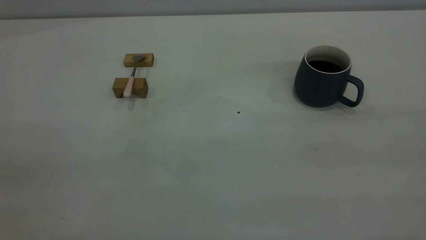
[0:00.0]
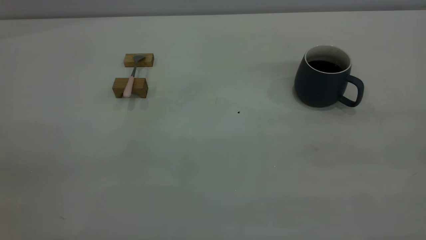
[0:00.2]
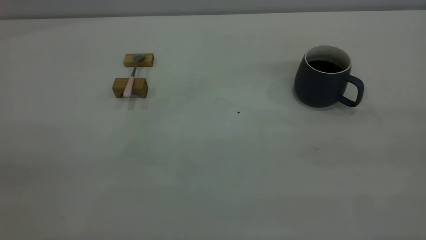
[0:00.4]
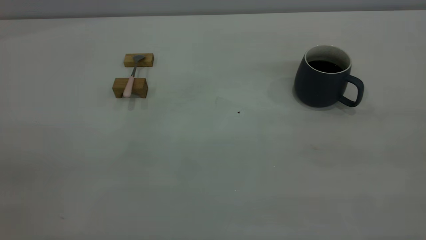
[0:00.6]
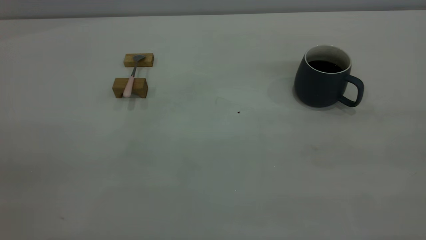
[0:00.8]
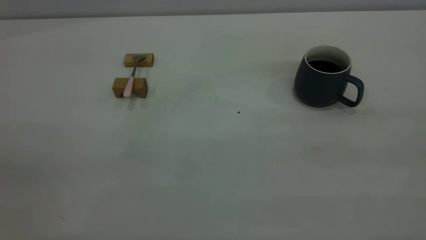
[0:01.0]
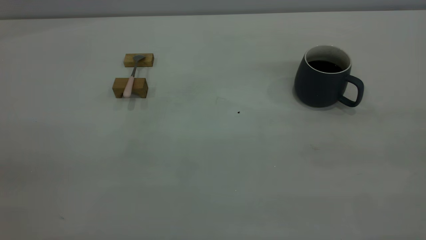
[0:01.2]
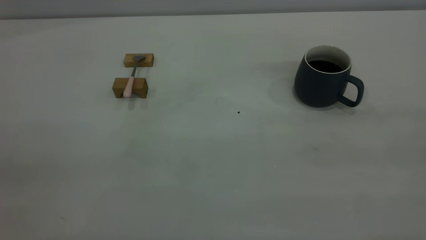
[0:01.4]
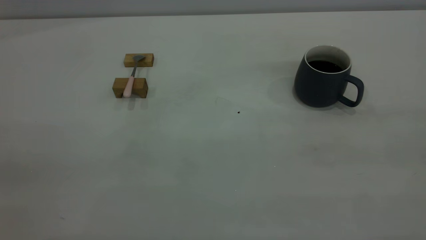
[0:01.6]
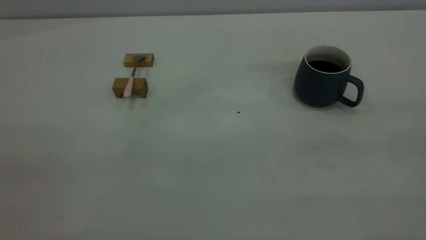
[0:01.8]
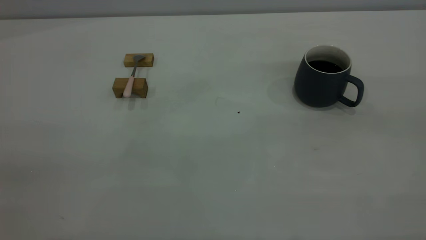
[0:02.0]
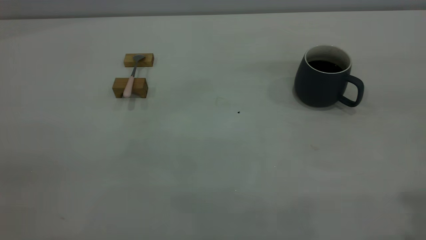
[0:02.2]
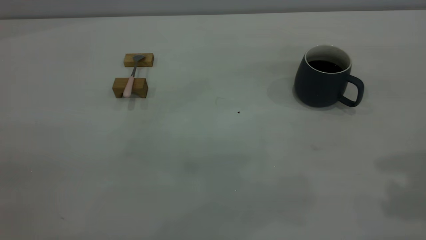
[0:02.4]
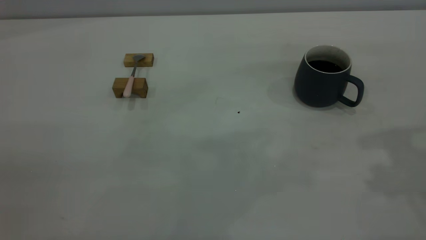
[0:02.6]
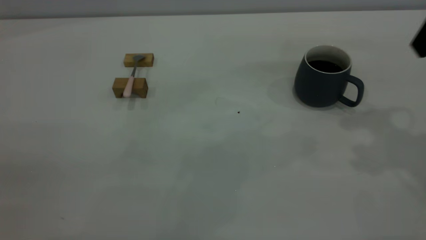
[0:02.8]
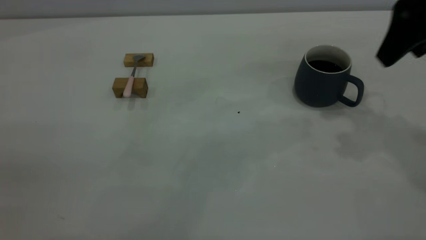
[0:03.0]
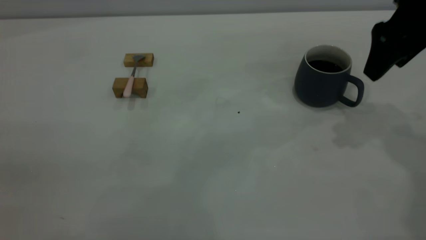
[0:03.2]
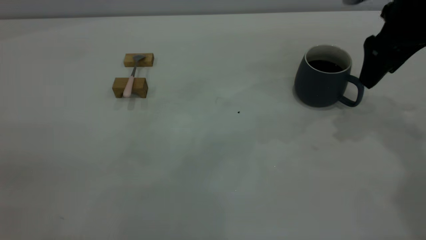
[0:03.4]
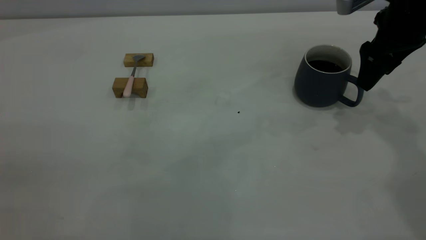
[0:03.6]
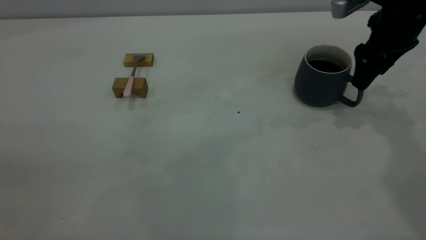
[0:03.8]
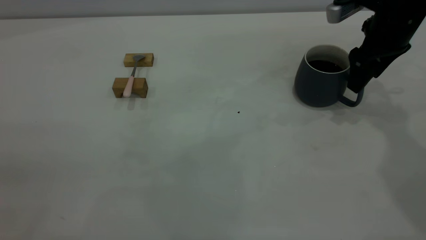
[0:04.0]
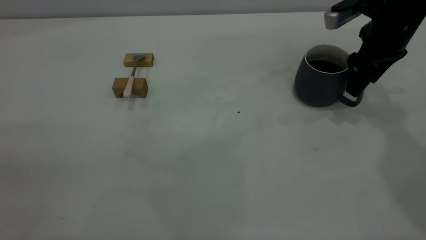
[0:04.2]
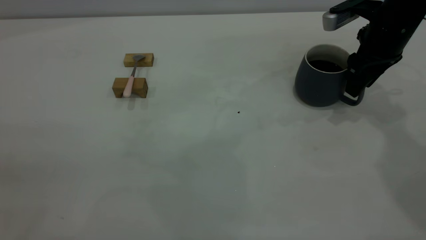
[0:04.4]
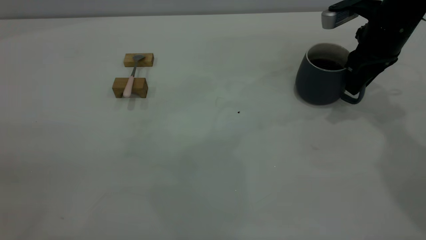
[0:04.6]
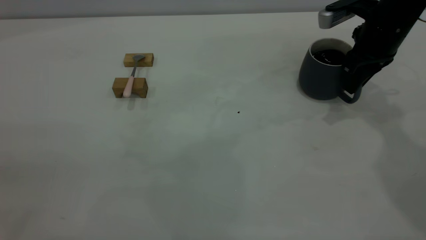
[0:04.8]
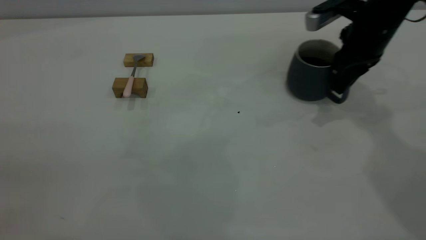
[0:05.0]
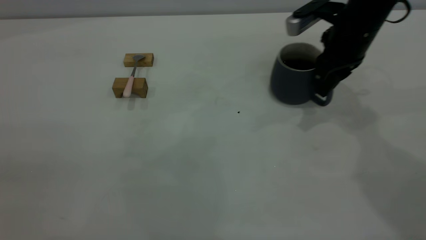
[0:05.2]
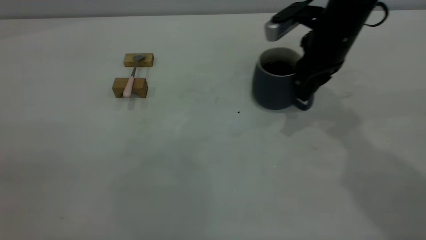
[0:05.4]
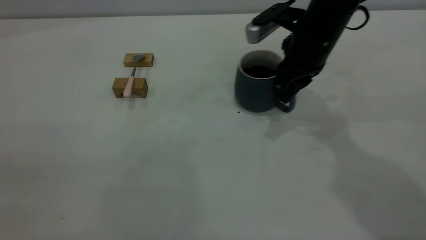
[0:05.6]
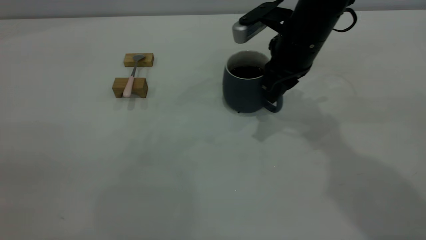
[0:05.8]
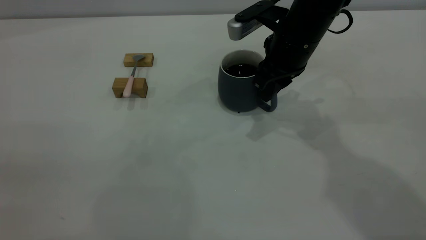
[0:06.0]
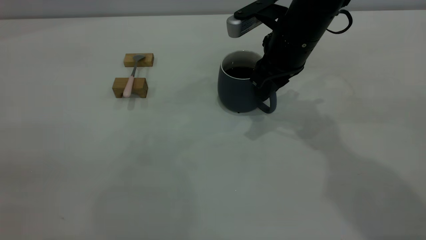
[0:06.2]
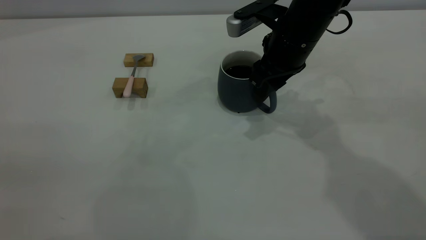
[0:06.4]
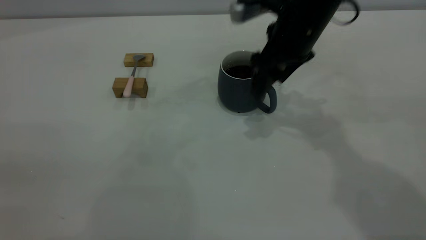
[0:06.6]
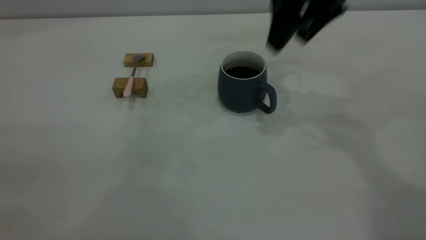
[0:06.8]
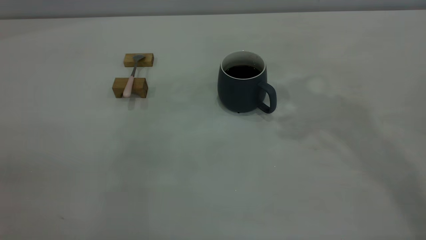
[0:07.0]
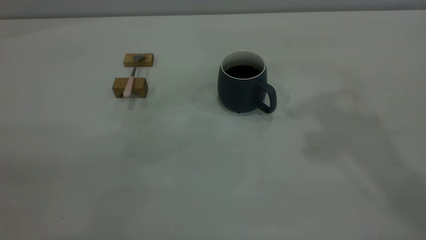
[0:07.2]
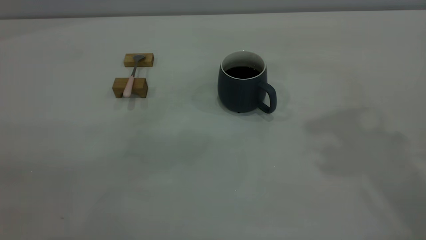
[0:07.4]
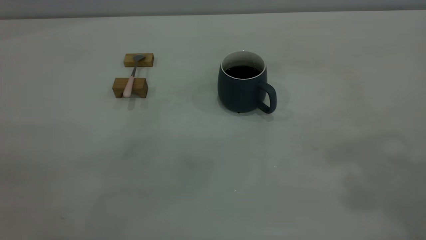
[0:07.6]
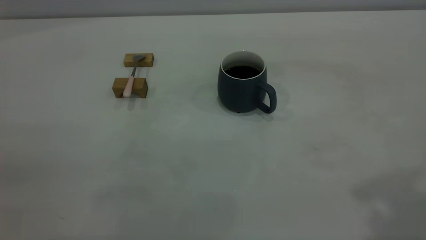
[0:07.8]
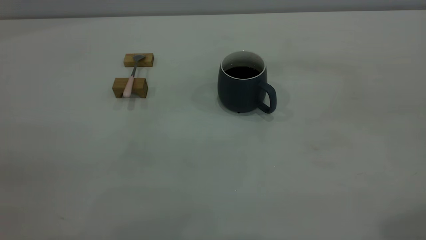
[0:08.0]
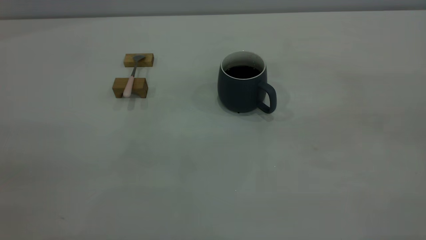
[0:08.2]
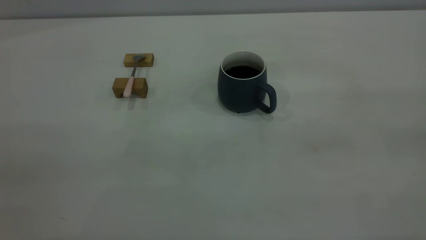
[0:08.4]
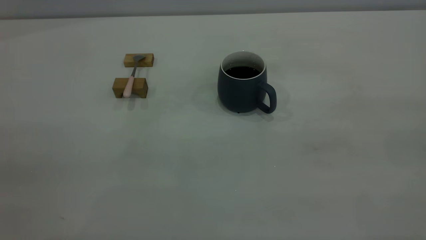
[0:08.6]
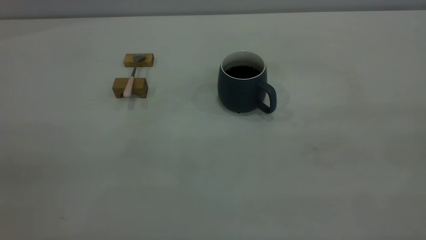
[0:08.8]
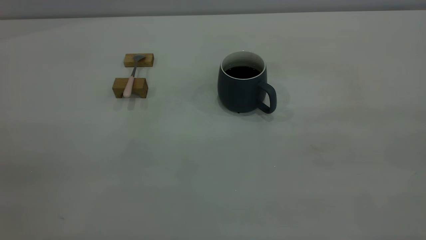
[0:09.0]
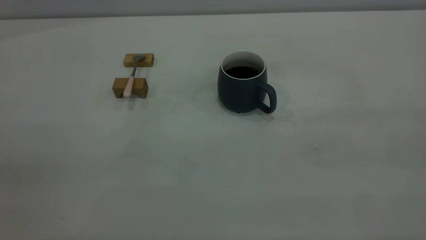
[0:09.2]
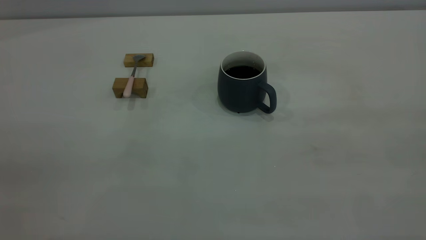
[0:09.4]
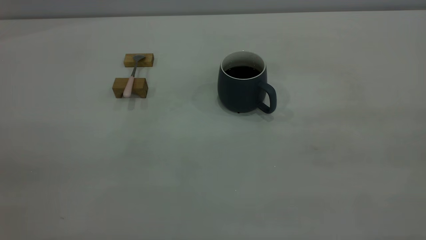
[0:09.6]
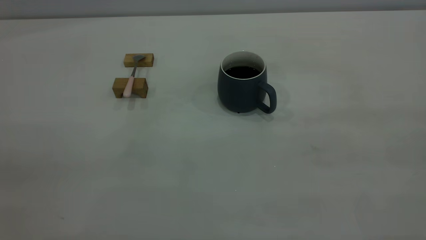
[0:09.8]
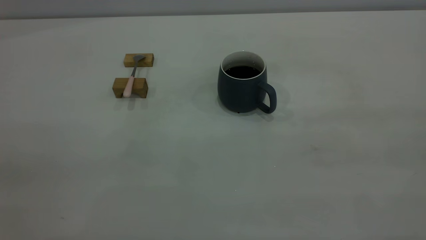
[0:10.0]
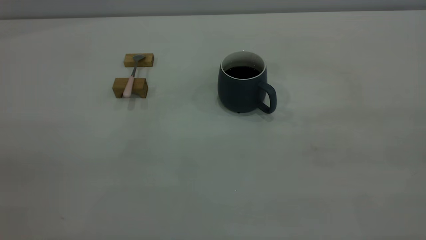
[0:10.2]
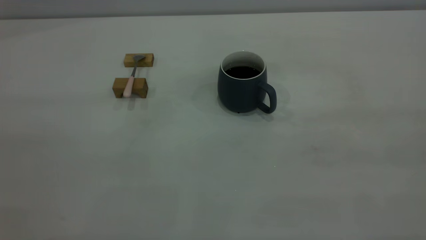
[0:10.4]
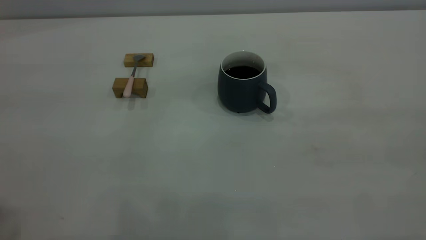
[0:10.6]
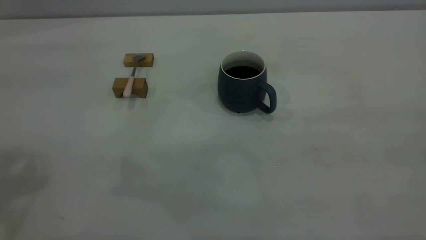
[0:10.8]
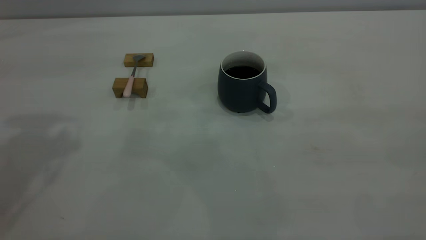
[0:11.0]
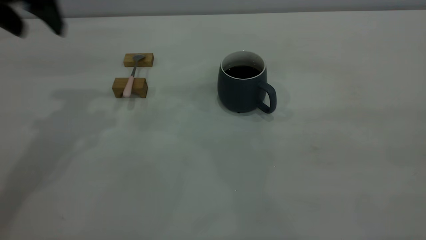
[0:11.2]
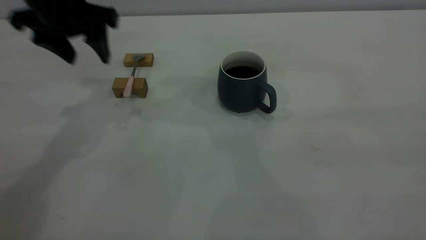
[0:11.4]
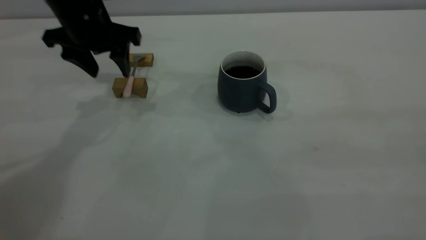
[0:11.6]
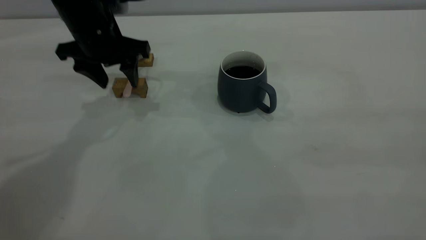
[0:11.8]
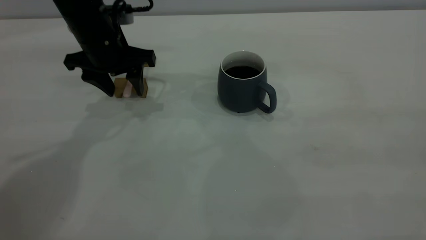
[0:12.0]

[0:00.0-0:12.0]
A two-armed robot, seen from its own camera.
Step, 0.0 to 6.6 s: Move the cup with coffee to the center of view.
0.0 to 1.6 s: The two grippers keep their place.
1.6 to 3.0 s: The right gripper travels forward by about 30 cm, and opens up.
3.0 to 4.4 s: The right gripper travels downward and forward by approximately 15 cm, and closes up.
4.4 to 6.0 s: The right gripper travels to the left by roughly 15 cm, and closes its fingers.
6.0 to 7.6 s: The right gripper is displaced upward and backward by roughly 40 cm, and opens up.
10.4 to 12.0 s: The left gripper travels forward and downward by roughly 40 cm.

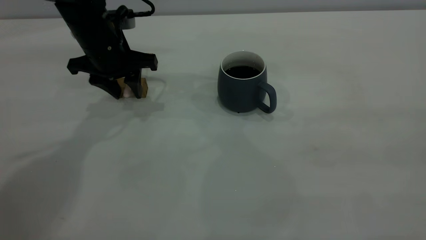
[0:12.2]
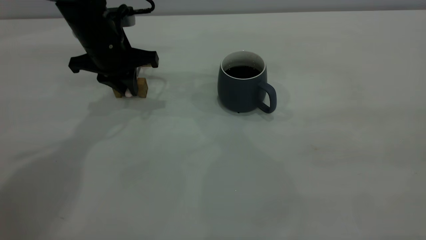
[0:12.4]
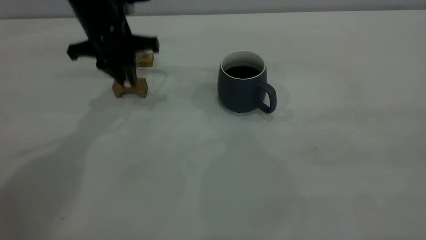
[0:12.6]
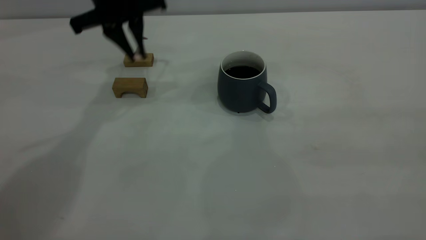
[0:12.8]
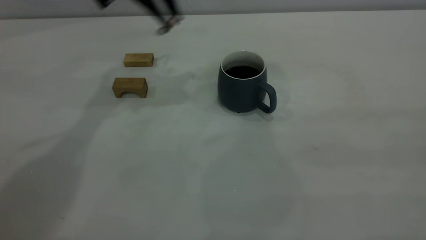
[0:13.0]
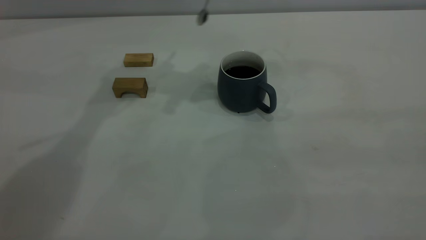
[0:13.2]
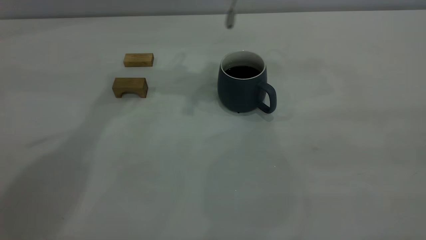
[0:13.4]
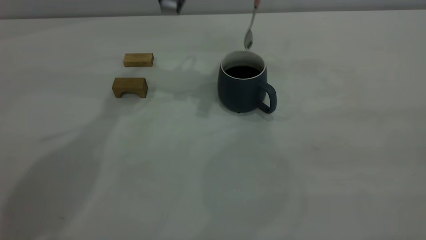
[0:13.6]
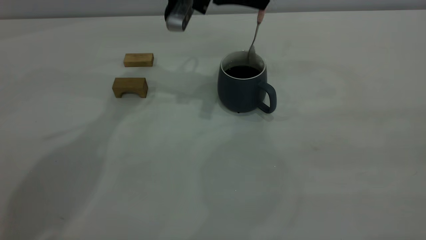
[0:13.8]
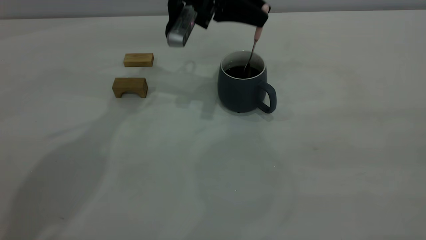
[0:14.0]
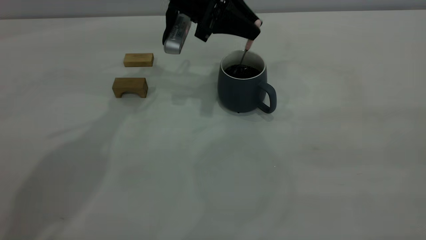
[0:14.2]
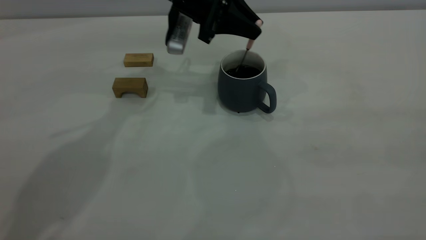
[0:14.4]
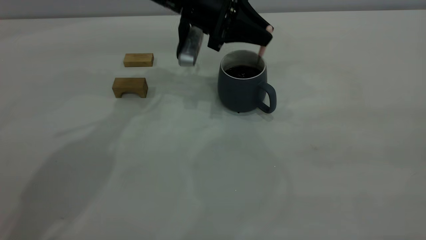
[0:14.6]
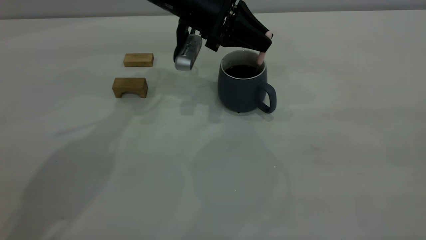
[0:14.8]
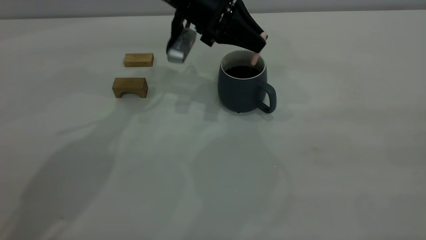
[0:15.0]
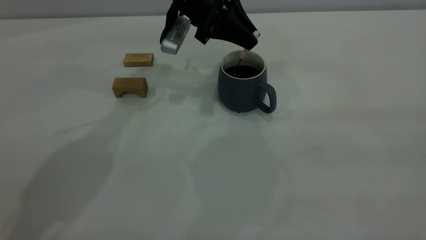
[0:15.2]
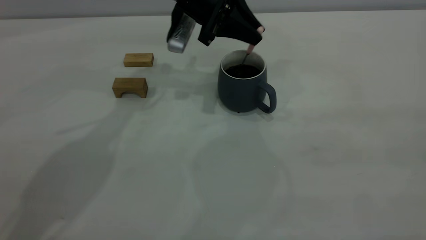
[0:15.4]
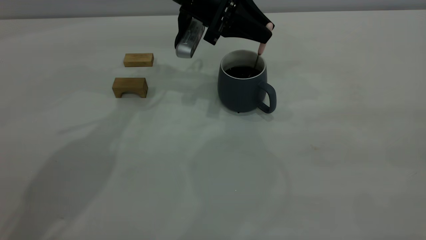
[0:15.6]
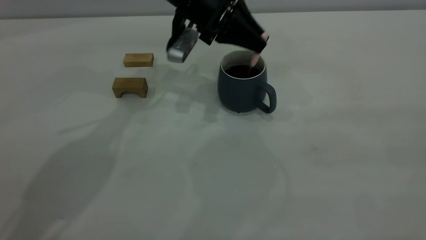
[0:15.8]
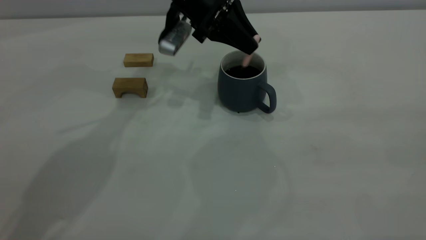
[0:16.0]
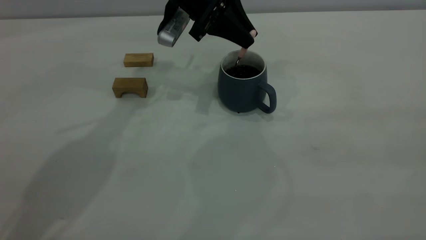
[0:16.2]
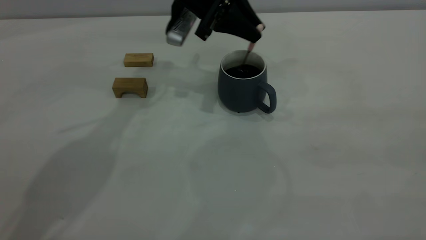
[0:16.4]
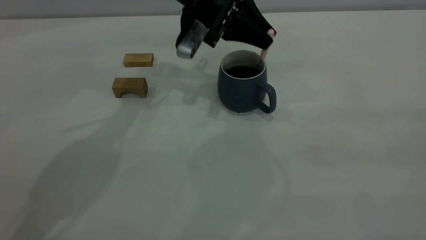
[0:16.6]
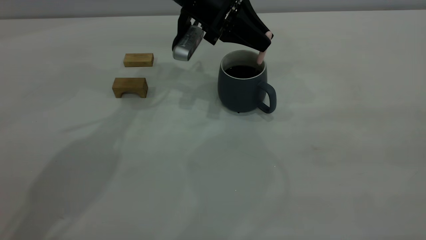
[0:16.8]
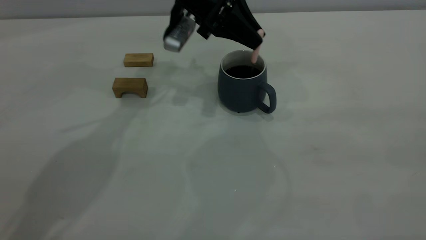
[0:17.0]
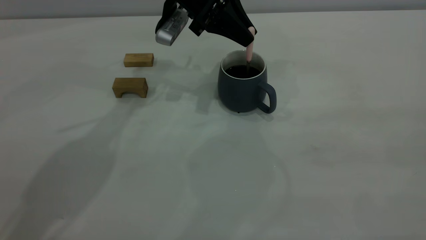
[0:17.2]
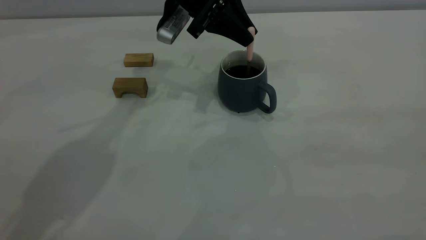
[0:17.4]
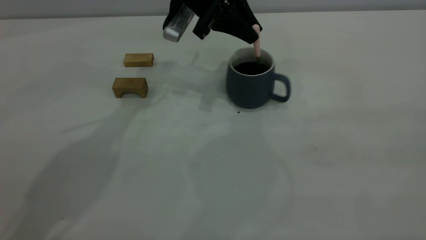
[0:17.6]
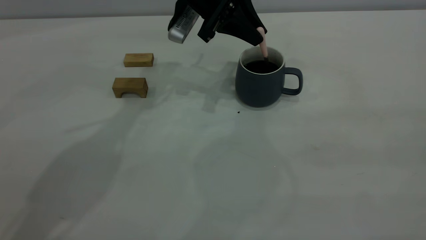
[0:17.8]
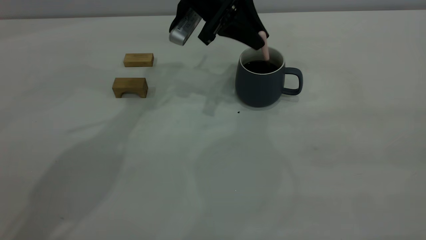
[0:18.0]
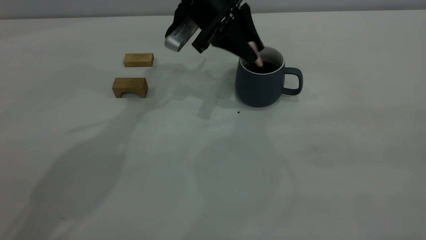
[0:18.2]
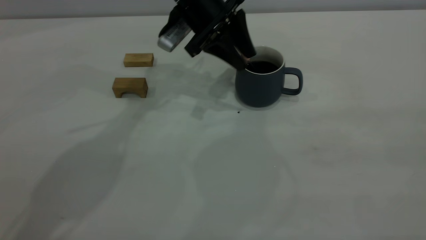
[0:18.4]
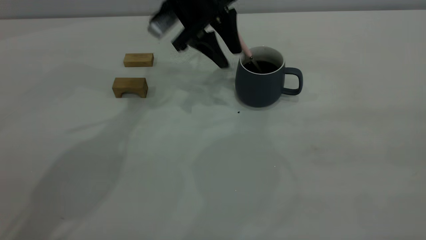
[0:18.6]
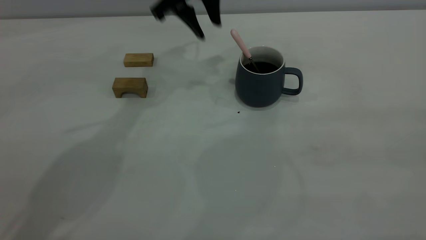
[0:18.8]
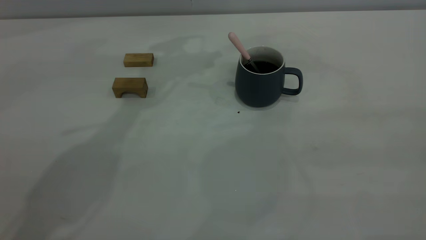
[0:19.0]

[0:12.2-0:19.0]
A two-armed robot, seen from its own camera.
Step, 12.8 to 18.6 s: Stir the coffee in the cup.
12.2 to 13.6 s: The left gripper goes some 15 cm to the right and upward, and closes its fingers.
13.6 to 15.0 s: The left gripper goes approximately 5 cm downward.
15.0 to 17.6 s: The grippers make only small movements.
17.6 to 19.0 s: The left gripper heads upward, covering roughly 10 cm, and opens its fingers.
